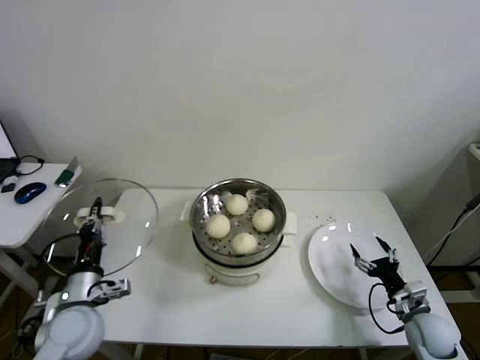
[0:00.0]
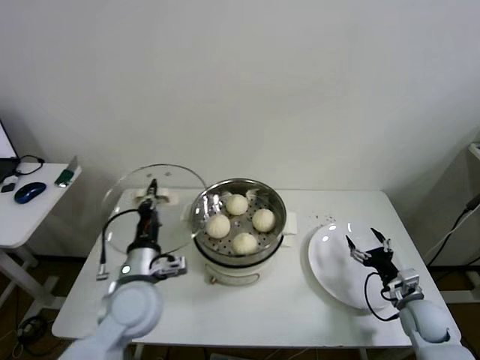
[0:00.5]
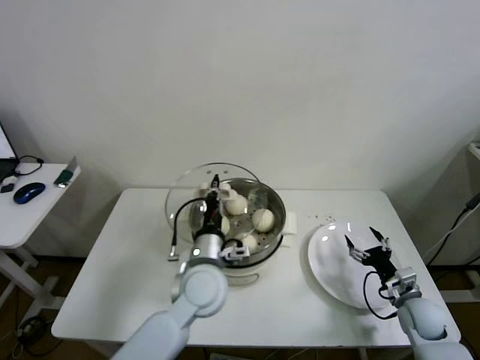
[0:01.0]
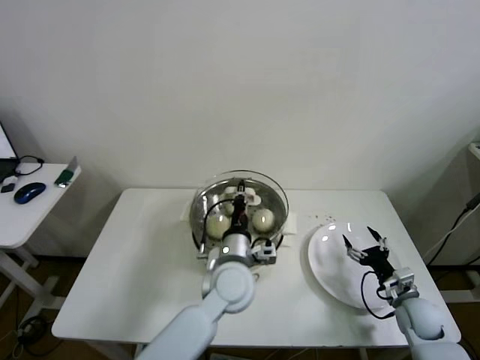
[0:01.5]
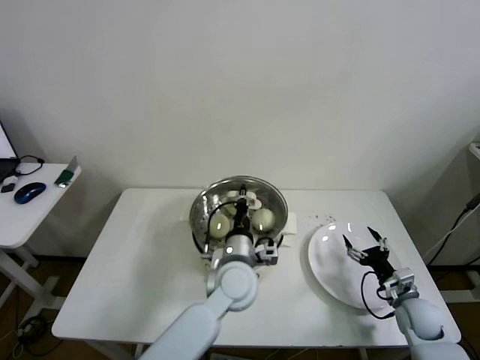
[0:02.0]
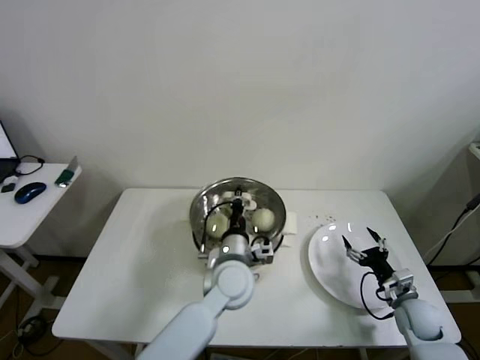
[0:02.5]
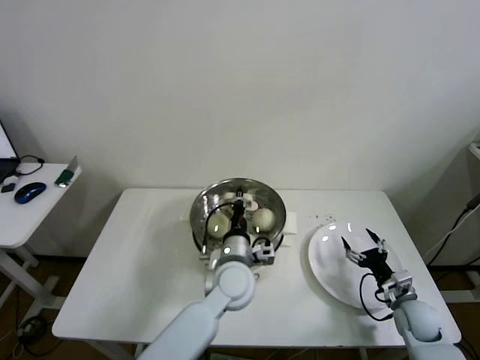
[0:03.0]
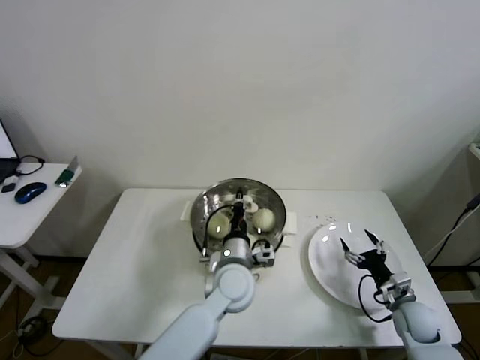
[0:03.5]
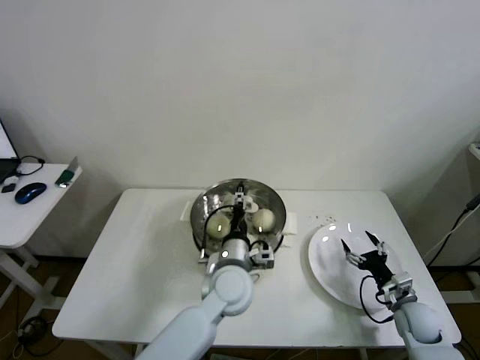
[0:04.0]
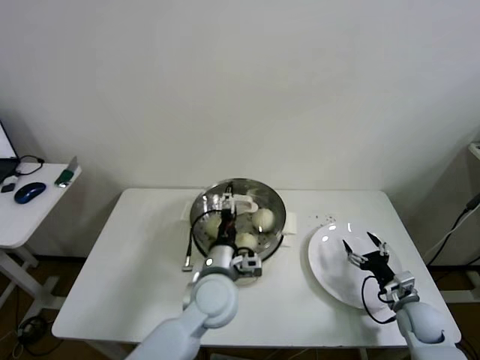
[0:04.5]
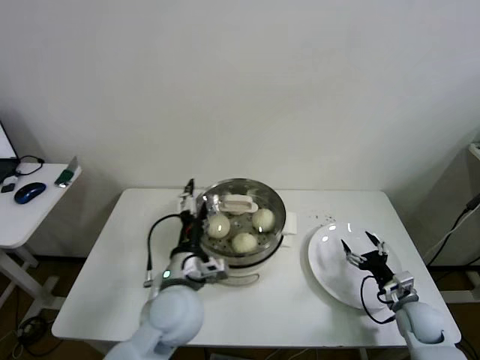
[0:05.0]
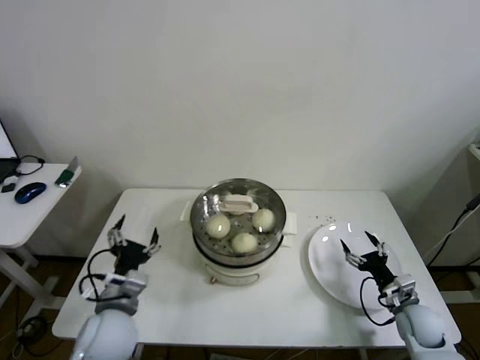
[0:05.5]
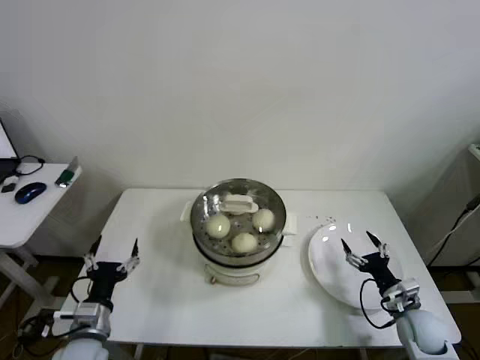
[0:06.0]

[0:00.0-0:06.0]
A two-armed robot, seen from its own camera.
Step, 0:00.0 to 0:04.5: Place the pot lid on the steamer with left gripper.
0:00.0 to 0:02.0: The left gripper goes some 30 cm to the right.
0:02.0 to 0:04.0: The left gripper opens up.
0:04.0 to 0:06.0: The left gripper shifts approximately 30 cm to the left and backward, and opens.
